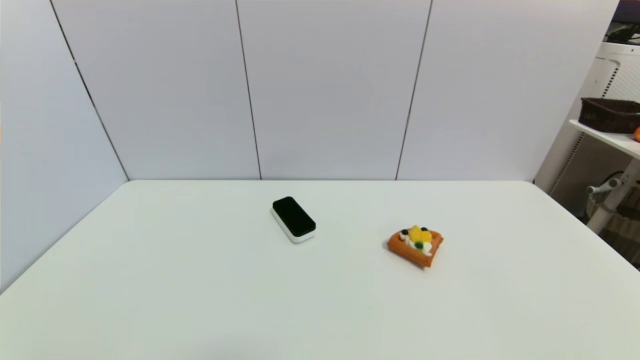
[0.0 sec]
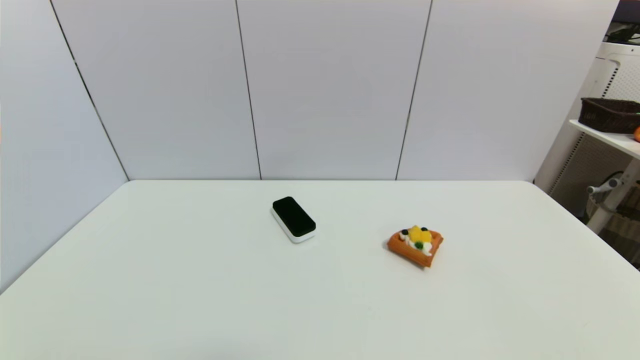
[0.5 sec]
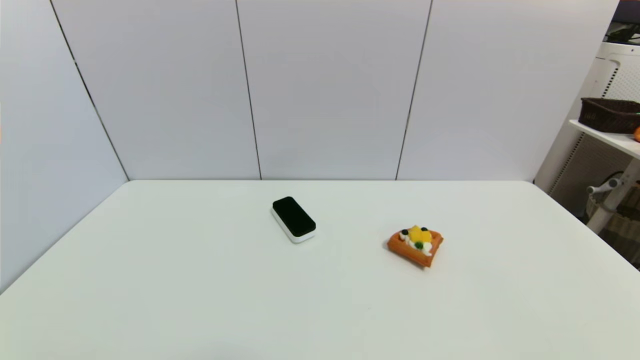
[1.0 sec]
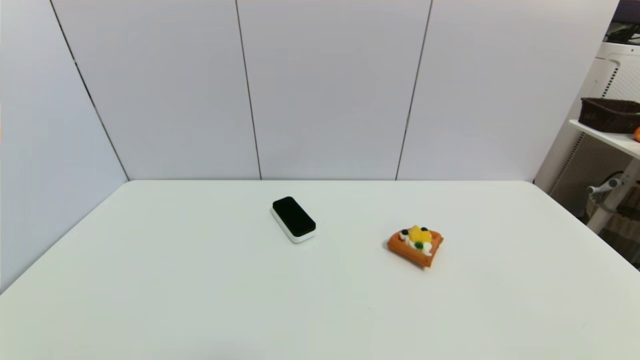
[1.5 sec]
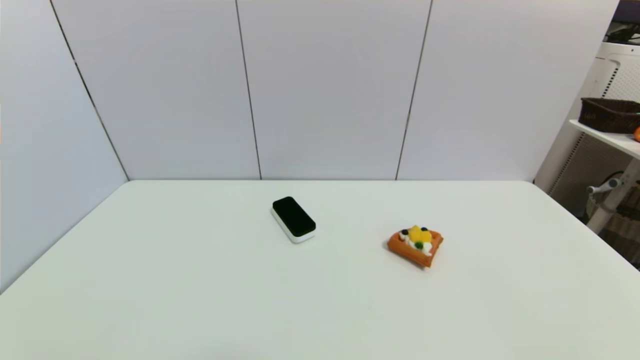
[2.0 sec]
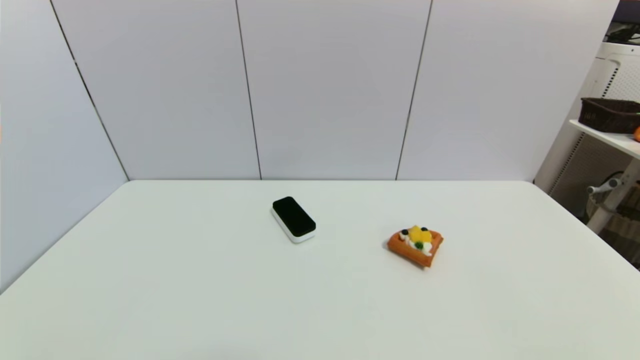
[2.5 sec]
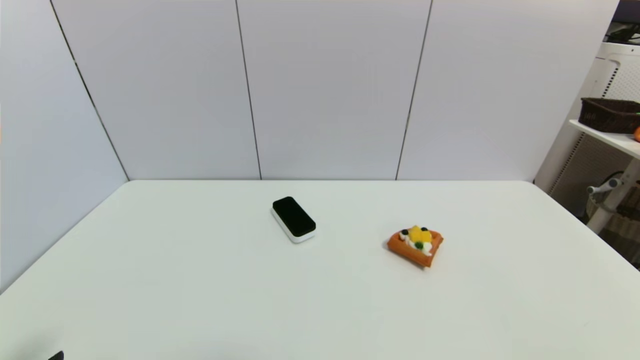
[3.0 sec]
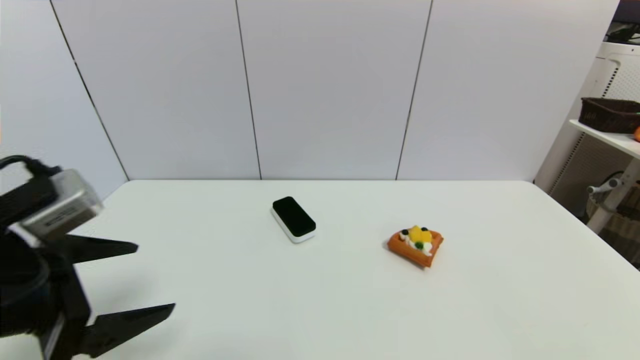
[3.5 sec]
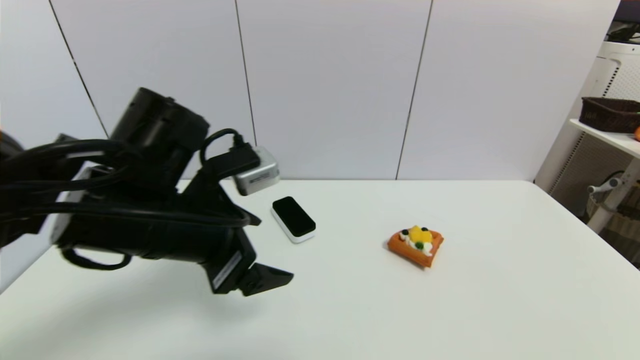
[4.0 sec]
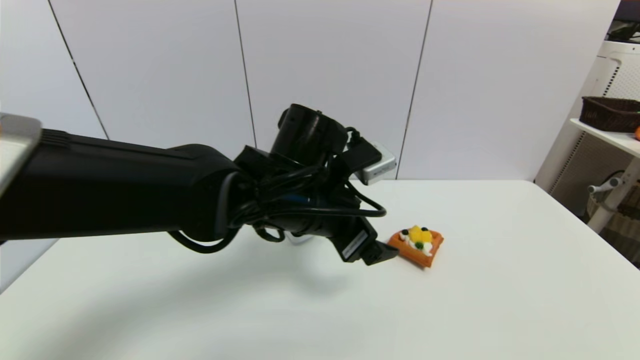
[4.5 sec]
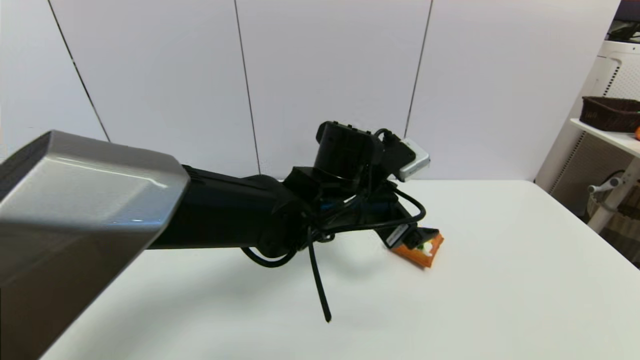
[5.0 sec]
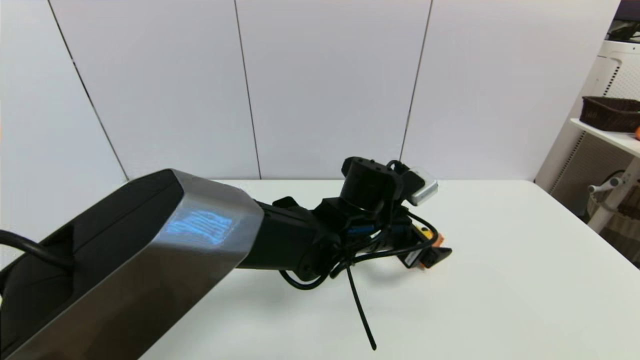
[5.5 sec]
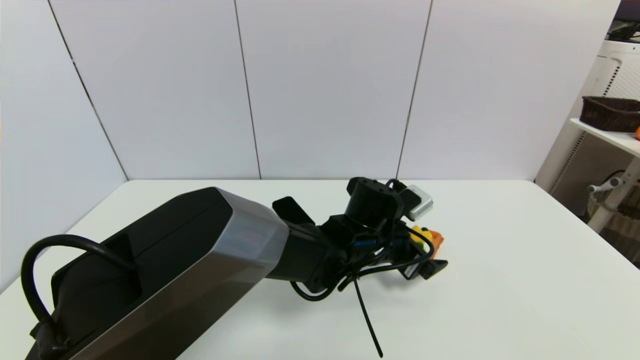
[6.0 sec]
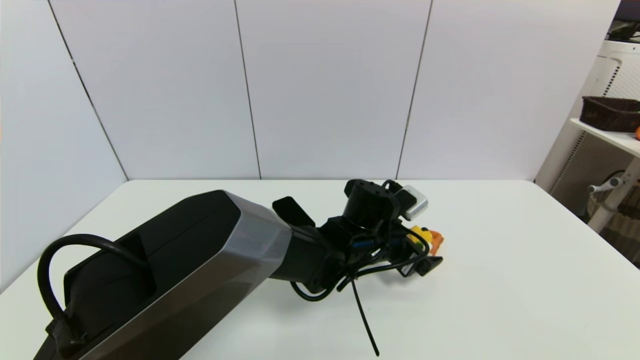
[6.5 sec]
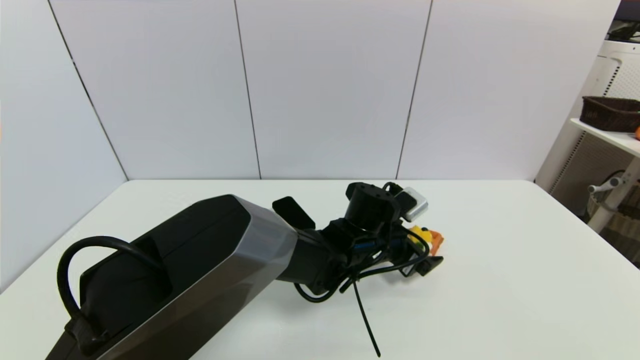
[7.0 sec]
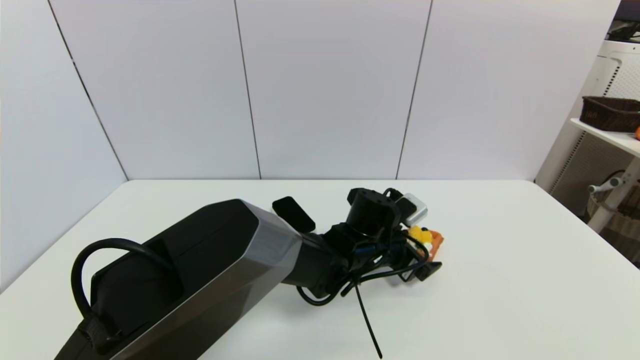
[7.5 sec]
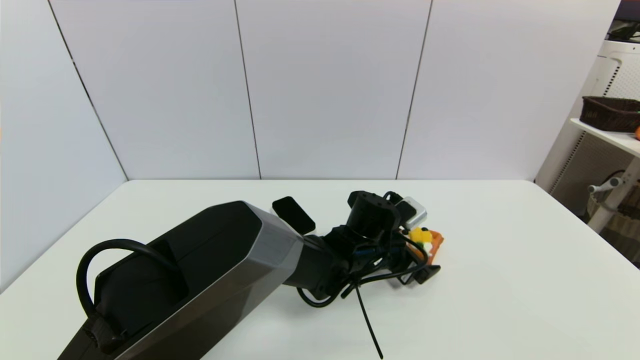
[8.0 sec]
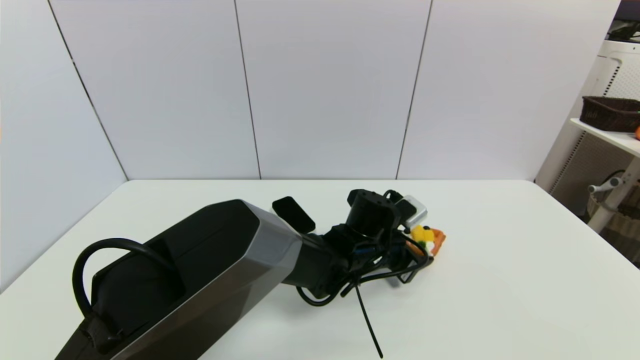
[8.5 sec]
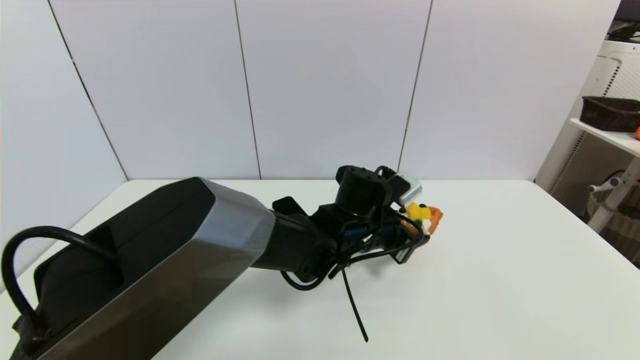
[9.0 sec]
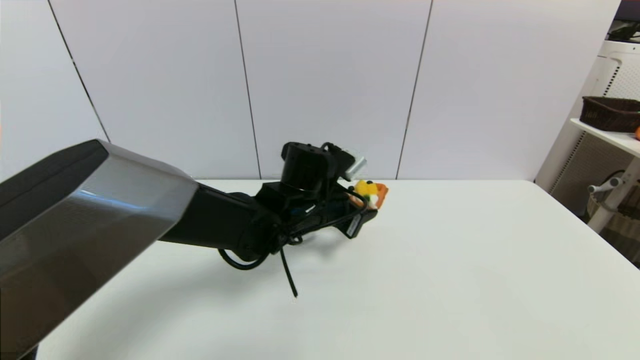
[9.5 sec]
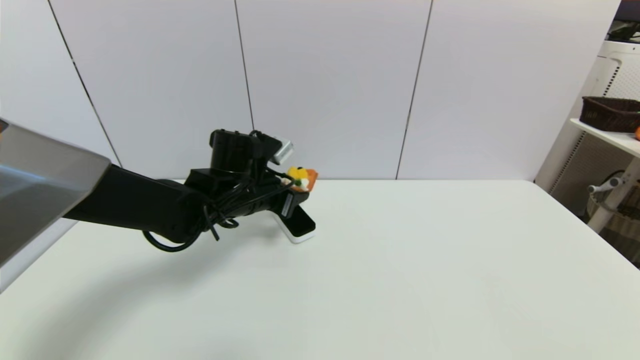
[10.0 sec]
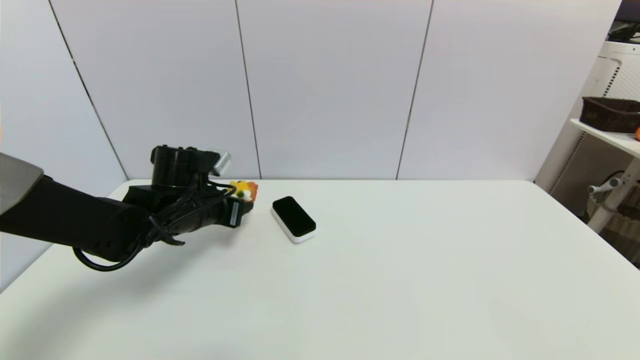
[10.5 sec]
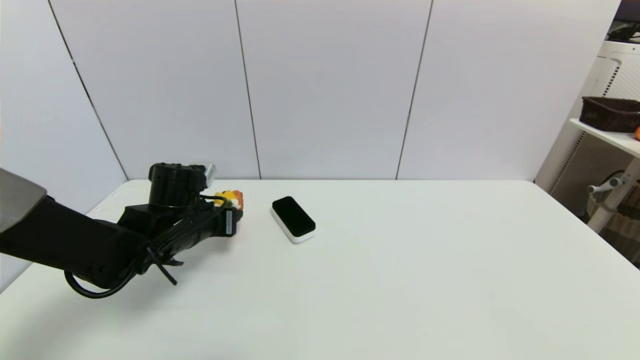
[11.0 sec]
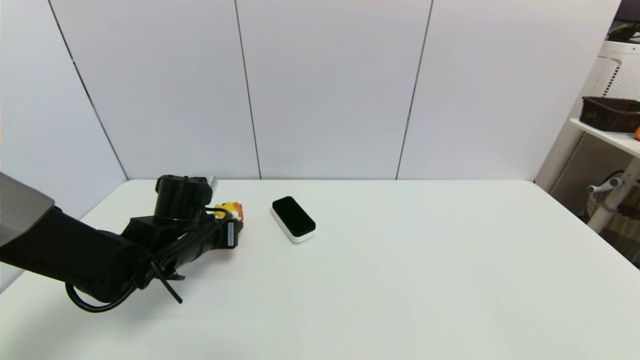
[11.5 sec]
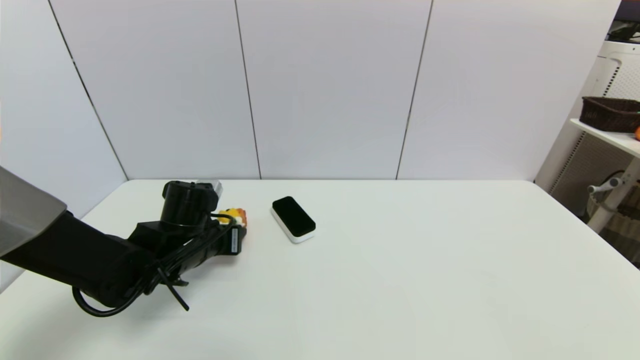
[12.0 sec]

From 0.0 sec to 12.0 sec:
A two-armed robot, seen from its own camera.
Step, from 3.0 sec to 8.5 sec: Grasp the pizza with left gripper.
From 0.0 sec to 2.0 sec: Both grippers stay put.
From 2.0 sec to 4.0 sec: The left gripper is displaced forward, to the right and upward by roughly 30 cm.
From 4.0 sec to 6.0 sec: The left gripper is displaced to the right, downward and forward by some 25 cm.
From 6.0 sec to 8.0 sec: The grippers move only a little.
From 8.0 sec to 10.0 sec: The left gripper goes some 20 cm to the left and upward, and closes its fingers.
From 10.0 sec to 12.0 sec: The left gripper shifts approximately 10 cm to the left and downward.

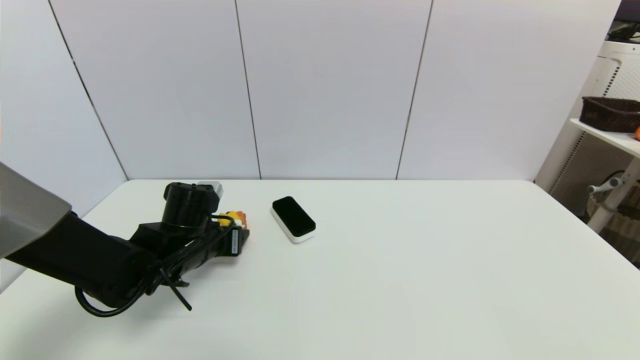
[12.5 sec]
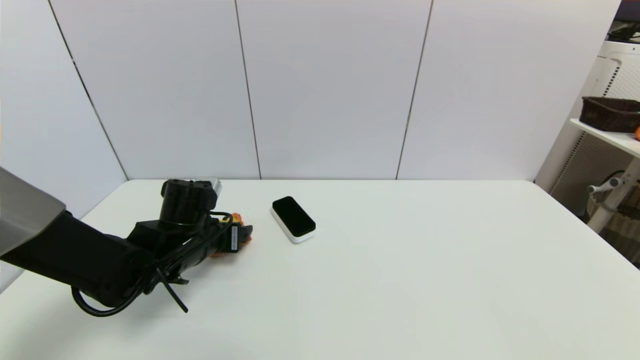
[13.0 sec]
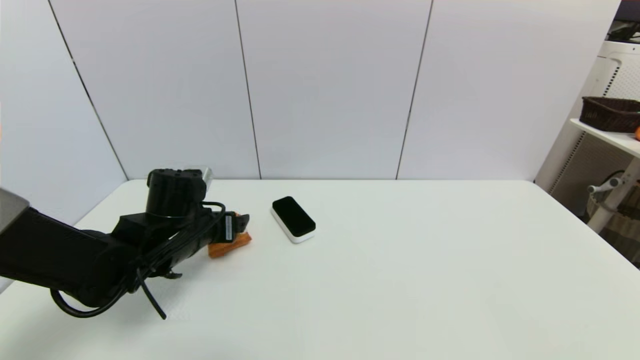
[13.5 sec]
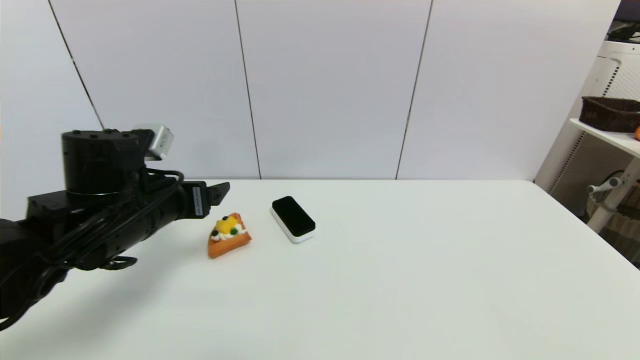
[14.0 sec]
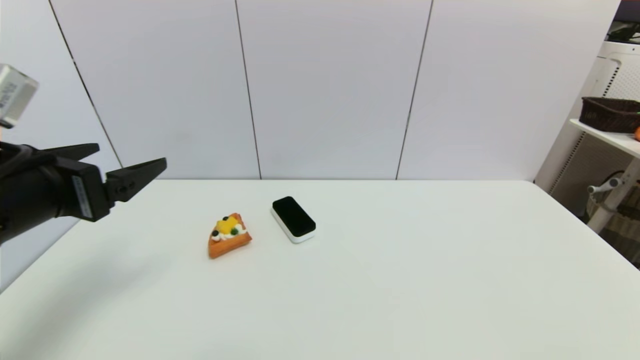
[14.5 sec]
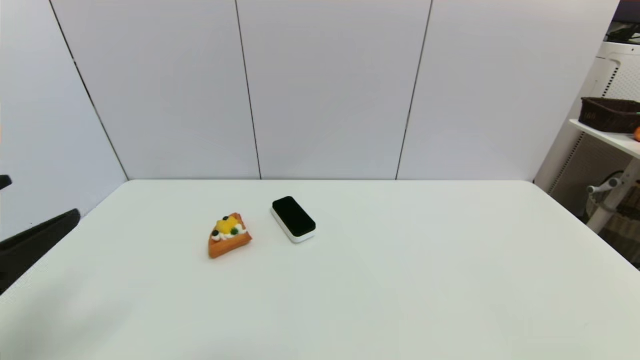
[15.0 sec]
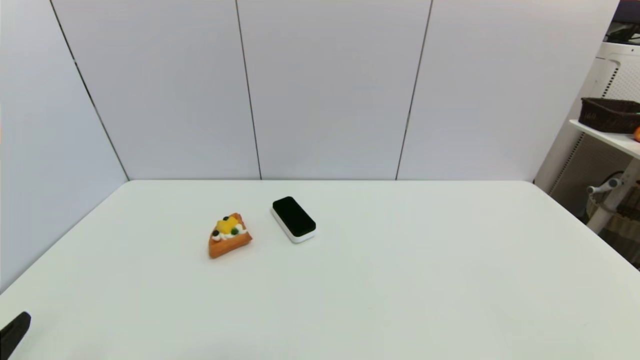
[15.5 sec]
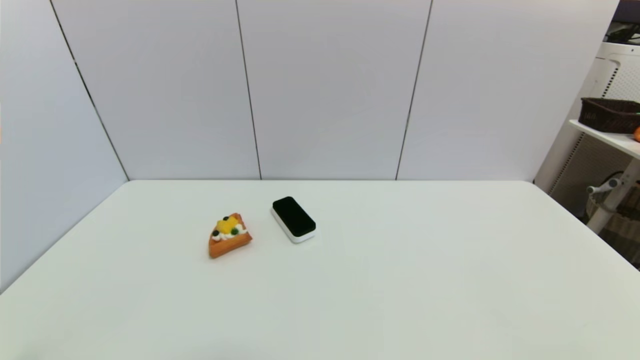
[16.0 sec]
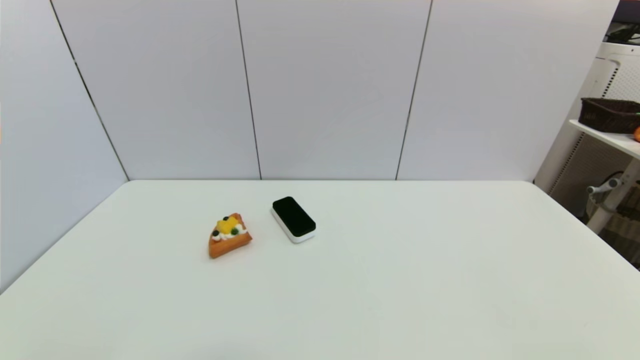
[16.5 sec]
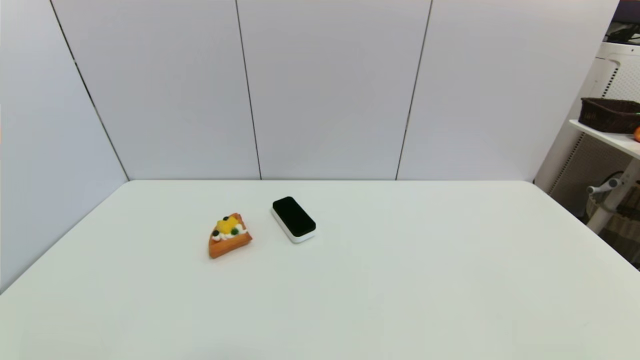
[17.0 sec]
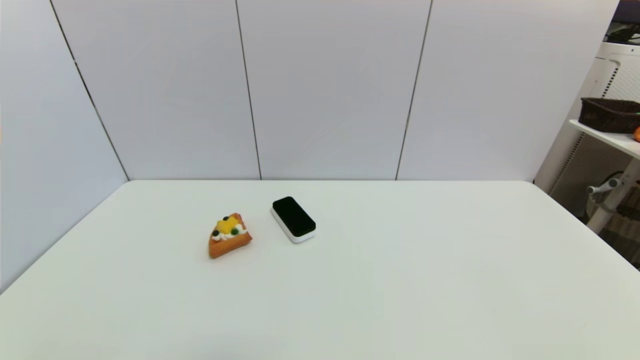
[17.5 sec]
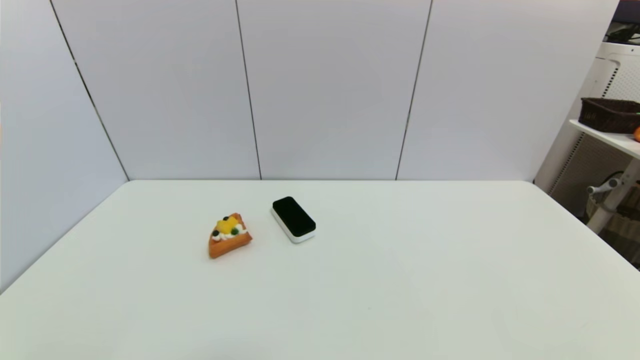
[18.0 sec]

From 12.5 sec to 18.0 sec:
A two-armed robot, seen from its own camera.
From 12.5 sec to 14.5 sec: The left gripper is displaced upward, backward and to the left by some 25 cm, and opens.
From 14.5 sec to 16.0 sec: The left gripper moves backward and downward, approximately 25 cm.
